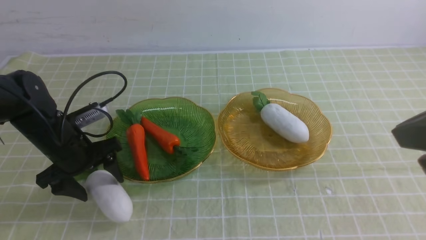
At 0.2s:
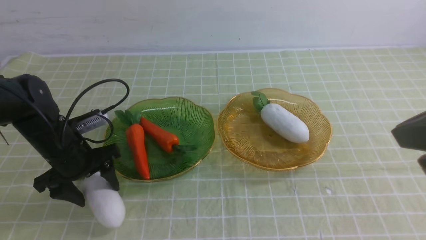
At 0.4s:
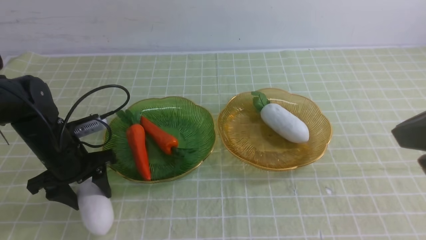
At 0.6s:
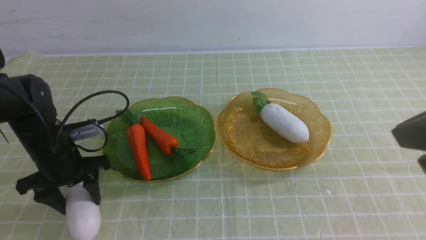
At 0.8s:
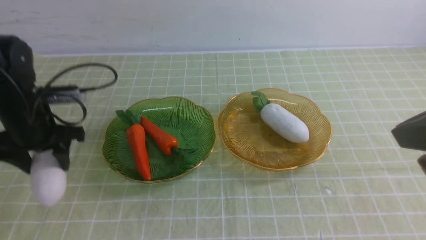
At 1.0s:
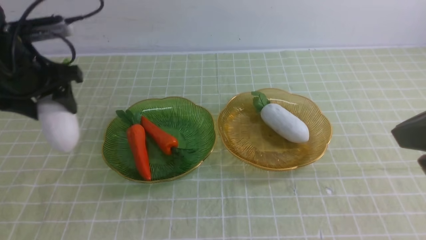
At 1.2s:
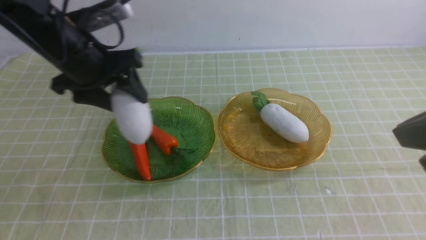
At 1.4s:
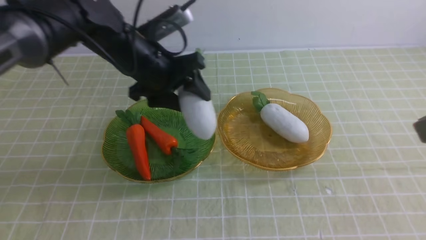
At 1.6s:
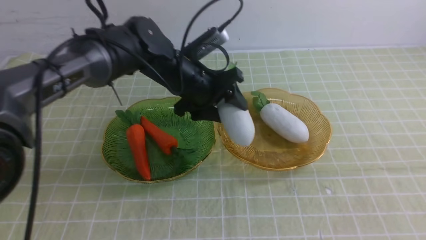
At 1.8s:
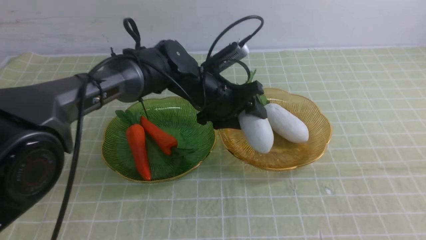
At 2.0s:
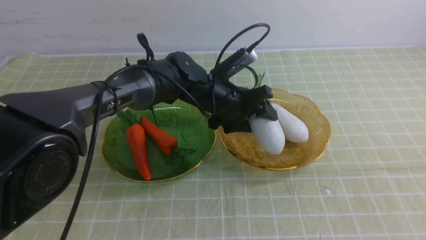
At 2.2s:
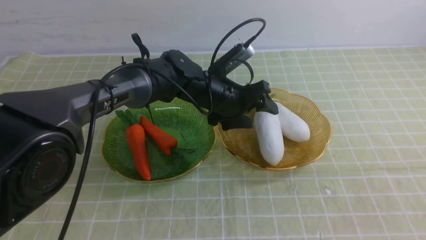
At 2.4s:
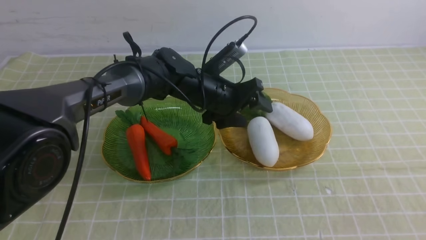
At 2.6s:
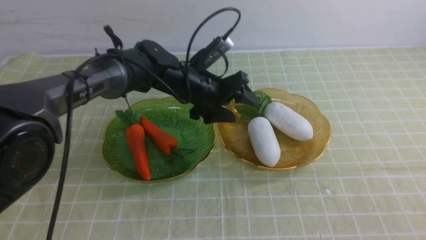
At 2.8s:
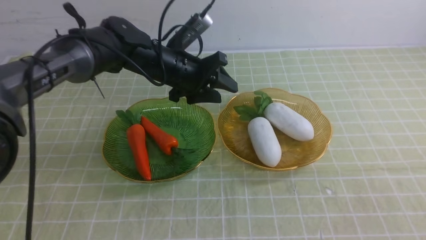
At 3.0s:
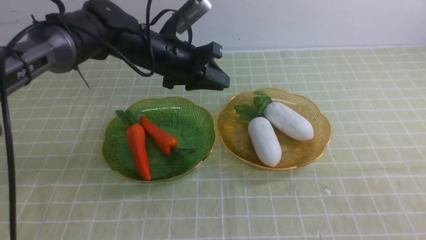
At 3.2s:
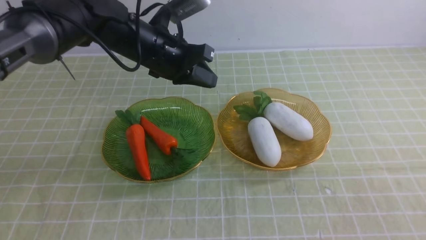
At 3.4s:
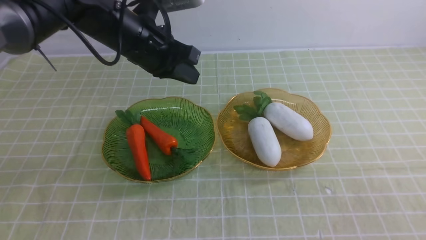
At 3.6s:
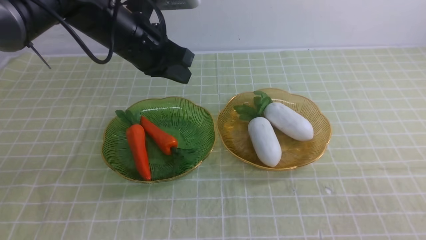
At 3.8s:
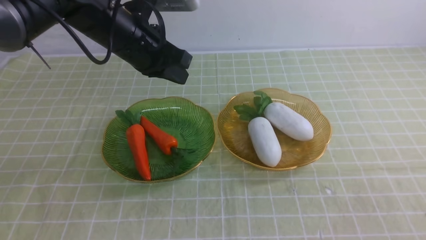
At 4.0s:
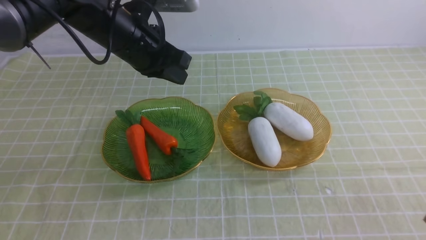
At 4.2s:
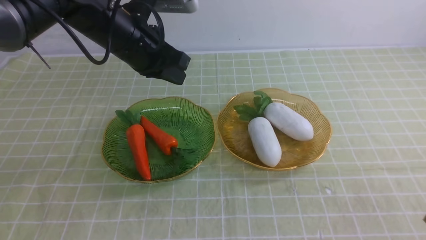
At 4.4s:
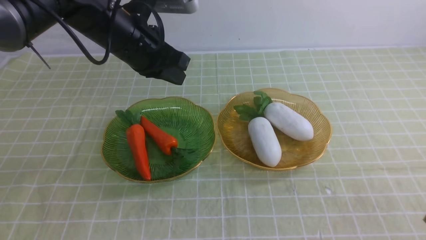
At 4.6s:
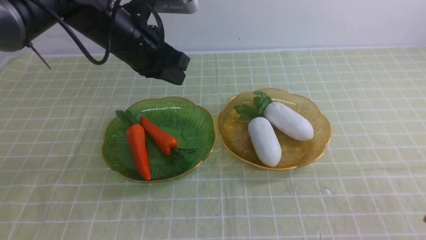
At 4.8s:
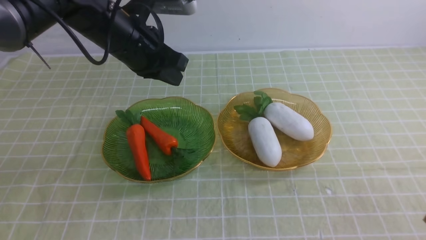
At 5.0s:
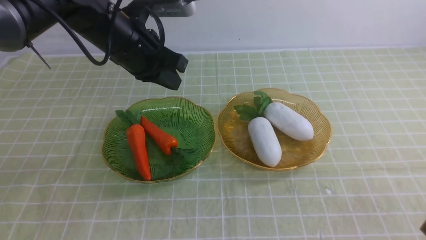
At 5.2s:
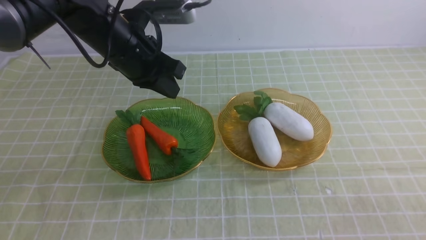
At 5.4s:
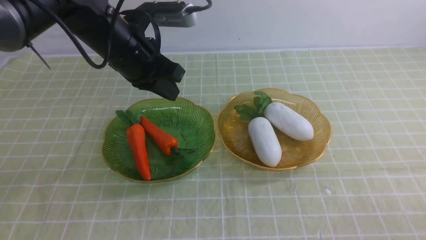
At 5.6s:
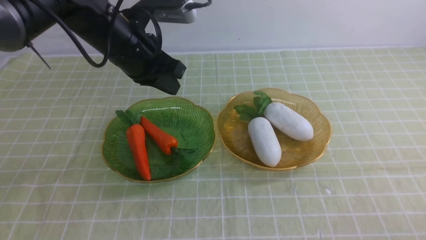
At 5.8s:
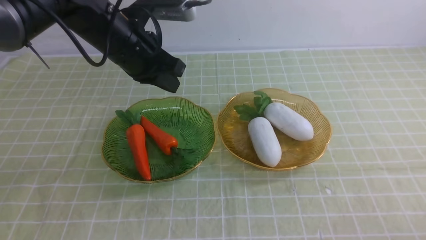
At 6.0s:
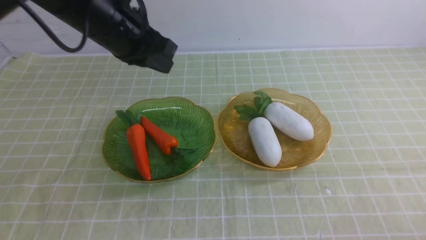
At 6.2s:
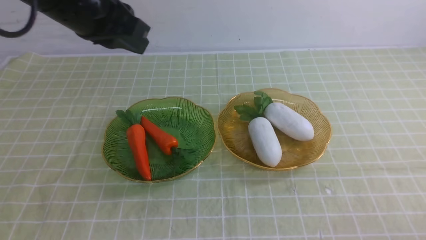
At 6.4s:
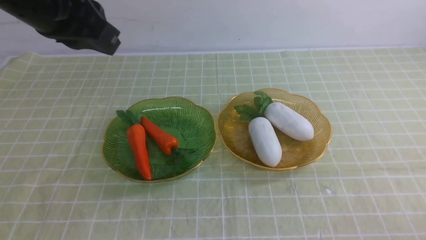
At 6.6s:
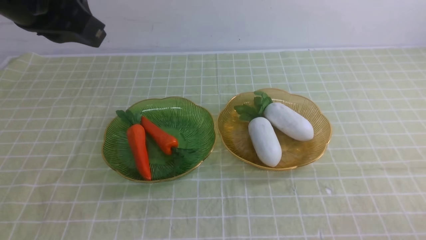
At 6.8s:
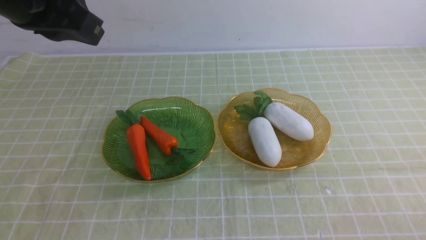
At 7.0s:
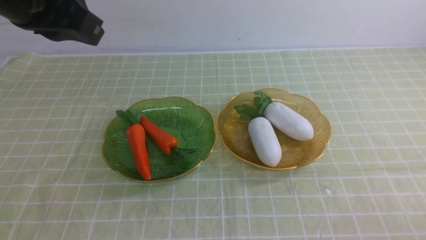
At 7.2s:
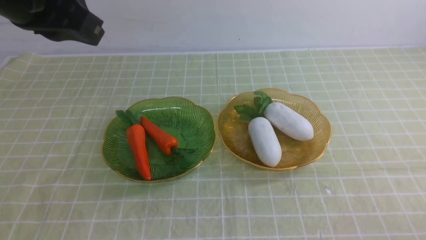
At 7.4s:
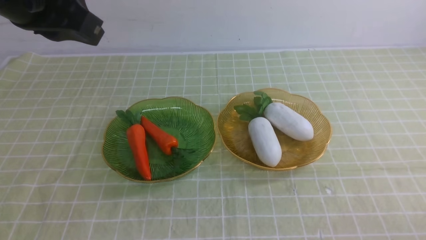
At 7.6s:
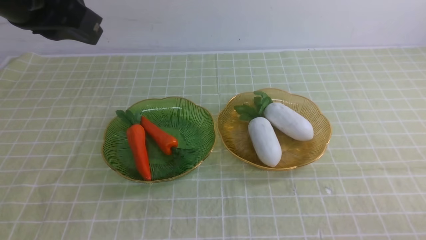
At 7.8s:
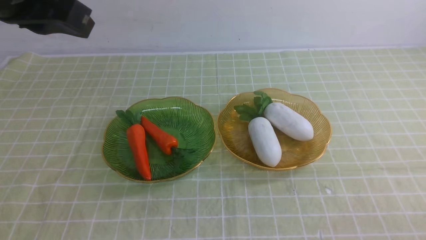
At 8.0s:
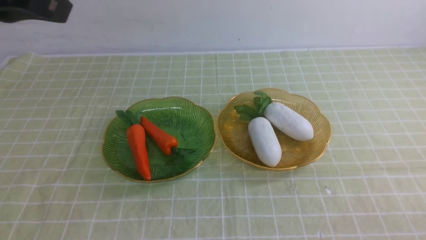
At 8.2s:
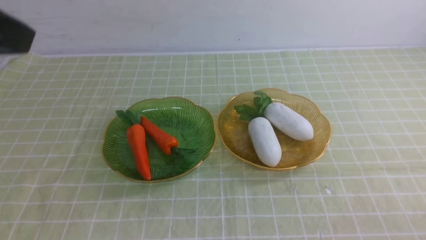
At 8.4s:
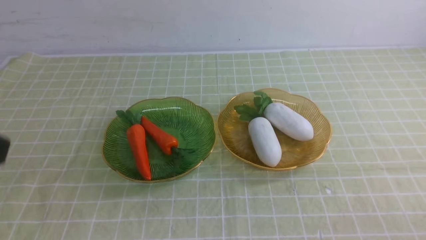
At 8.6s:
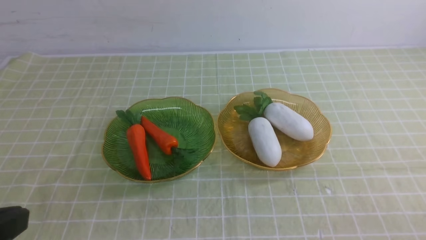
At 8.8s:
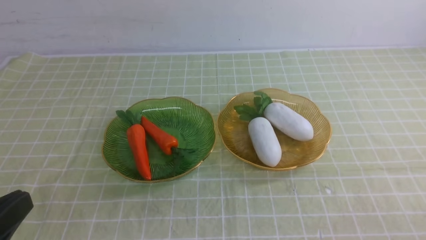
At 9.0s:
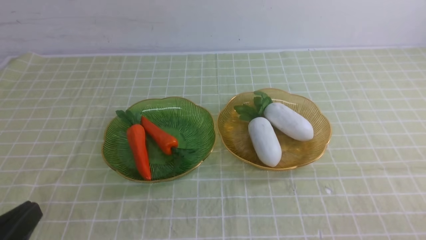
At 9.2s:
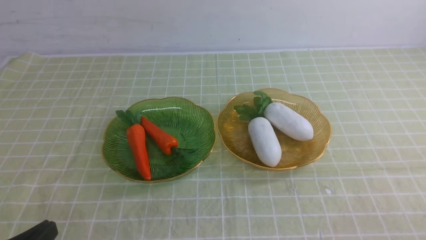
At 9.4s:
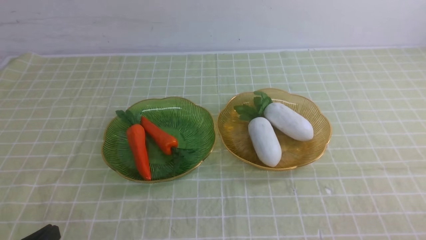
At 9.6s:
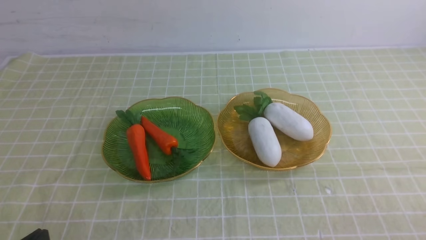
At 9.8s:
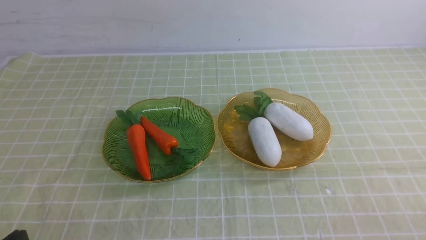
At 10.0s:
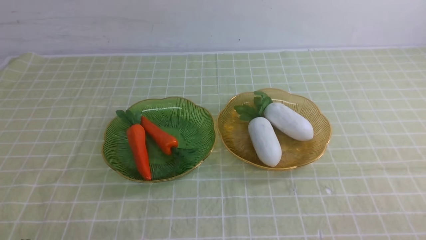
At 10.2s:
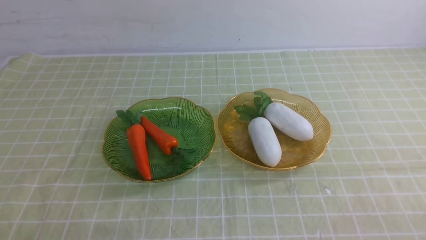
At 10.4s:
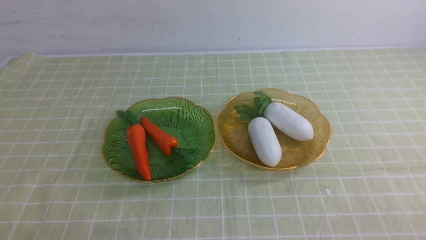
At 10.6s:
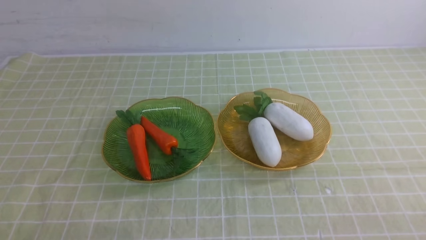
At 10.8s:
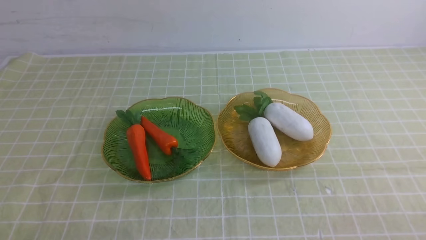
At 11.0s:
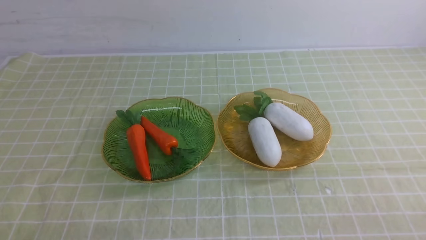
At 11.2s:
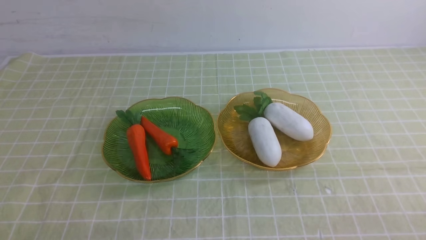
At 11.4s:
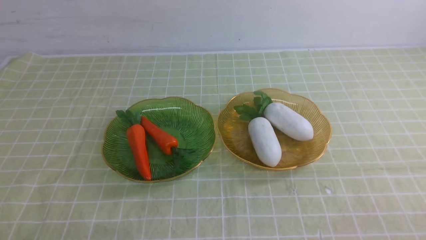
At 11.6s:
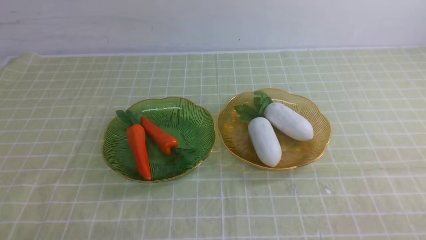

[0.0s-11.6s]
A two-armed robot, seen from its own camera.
Step, 0.0s to 2.8s: use the left arm to grab a radish and put it into the right plate.
0.0s to 1.4s: The left gripper heads upward, to the right and forward, covering about 15 cm.
1.4s to 2.8s: The right gripper moves downward, backward and to the right, some 15 cm, while the left gripper moves to the right, downward and forward, approximately 10 cm.
2.8s to 4.4s: The left gripper goes some 10 cm upward and to the left, and closes up; the right gripper goes roughly 5 cm downward.
4.4s to 5.8s: The right gripper goes some 5 cm downward.
5.8s to 7.2s: The left gripper heads upward and backward, covering approximately 15 cm.
7.2s to 8.8s: The left gripper travels backward and downward by some 25 cm.
8.8s to 10.2s: The left gripper moves downward, about 15 cm.
10.2s to 11.6s: Both grippers stay about where they are.
